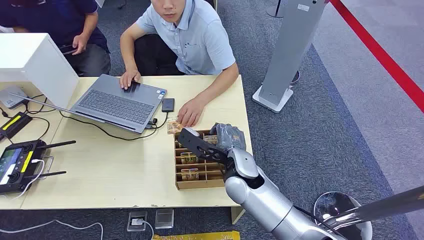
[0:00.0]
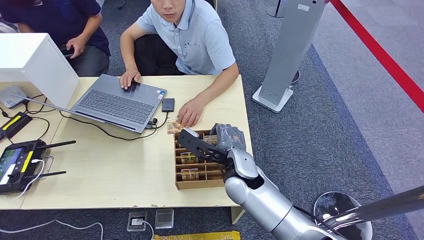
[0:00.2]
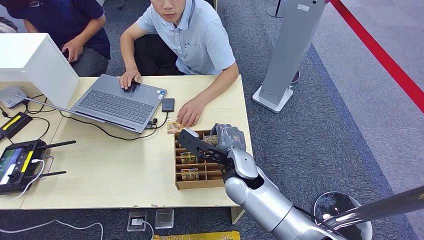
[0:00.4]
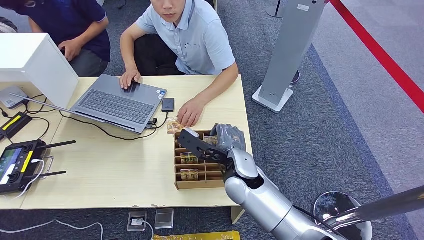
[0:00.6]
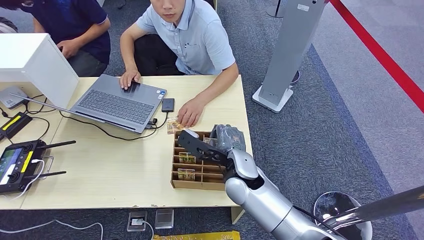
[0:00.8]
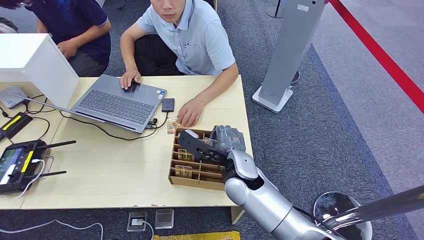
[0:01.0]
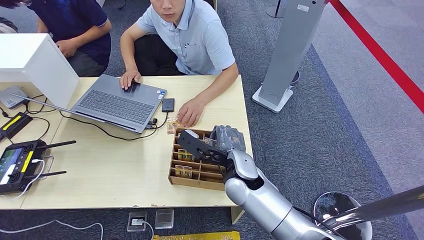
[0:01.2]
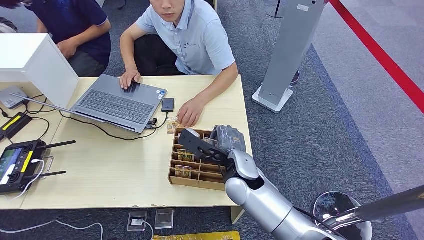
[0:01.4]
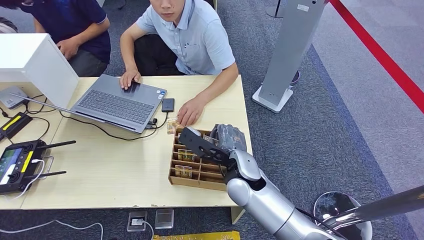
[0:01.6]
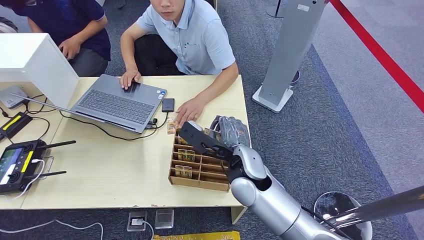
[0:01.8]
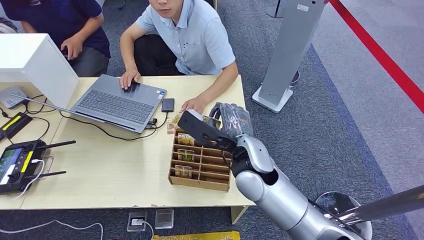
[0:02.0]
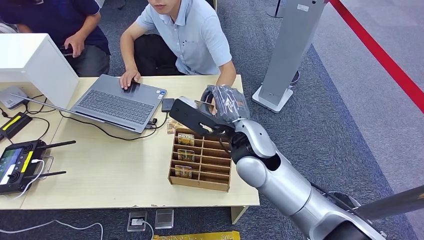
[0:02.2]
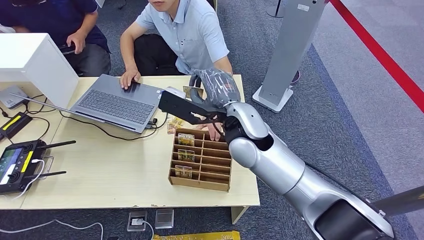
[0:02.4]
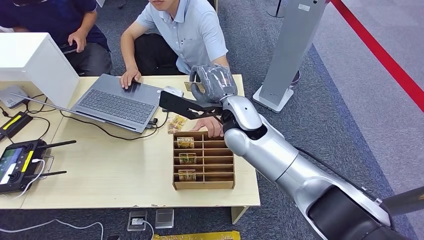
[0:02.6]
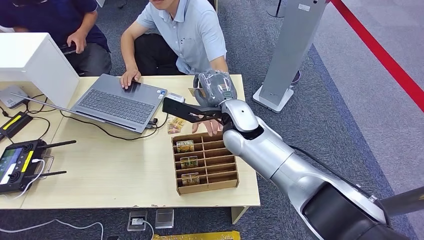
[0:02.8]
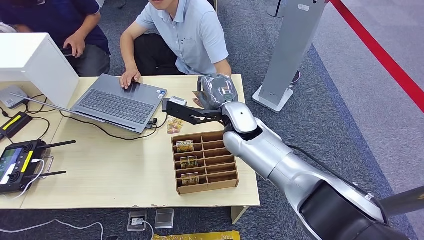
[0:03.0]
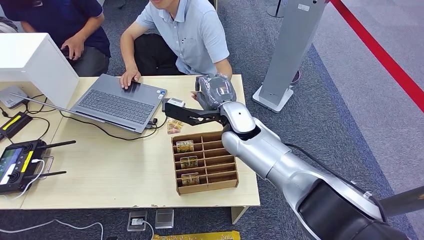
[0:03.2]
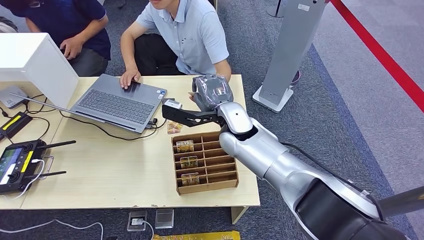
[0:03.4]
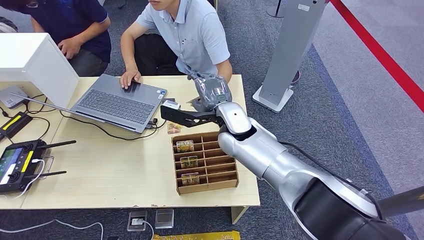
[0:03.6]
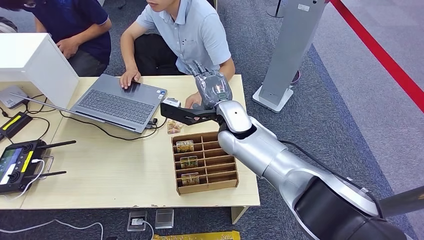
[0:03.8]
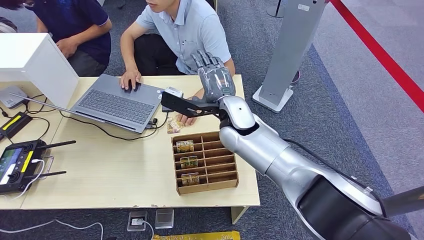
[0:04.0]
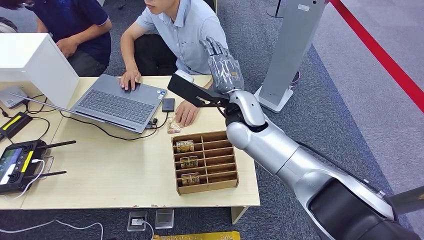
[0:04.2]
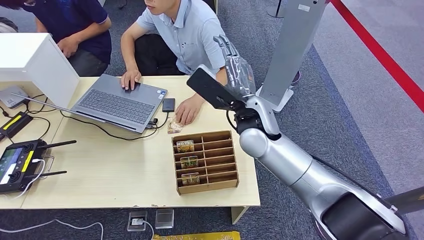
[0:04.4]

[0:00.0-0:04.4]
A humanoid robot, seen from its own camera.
Step, 0:00.0 to 0:02.2: Pick up the key card from the card box.
Step, 0:02.4 to 0:04.4: Hand the key card to the target.
0:03.0 to 0:04.4: The right hand ends up about 5 cm from where it was.
